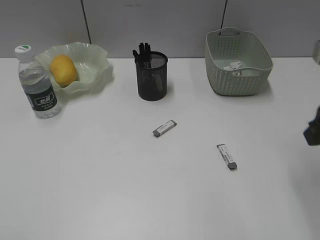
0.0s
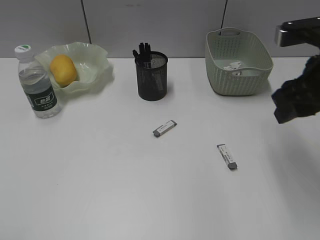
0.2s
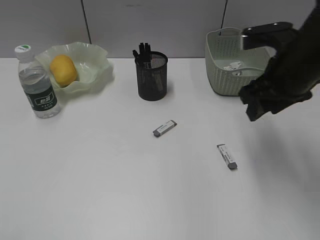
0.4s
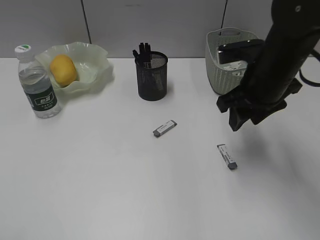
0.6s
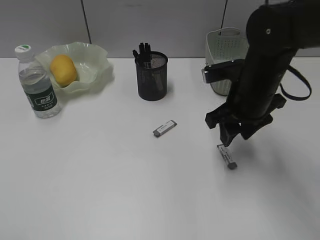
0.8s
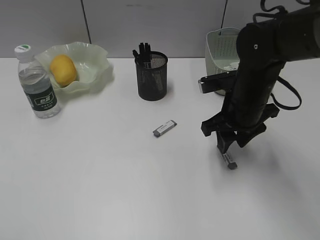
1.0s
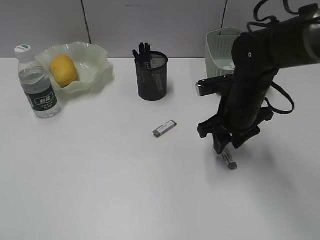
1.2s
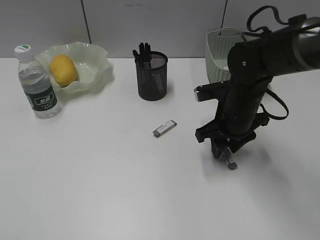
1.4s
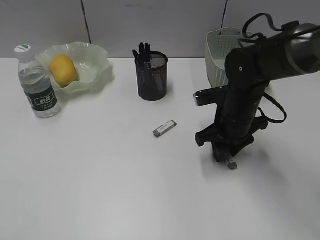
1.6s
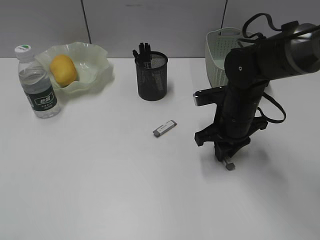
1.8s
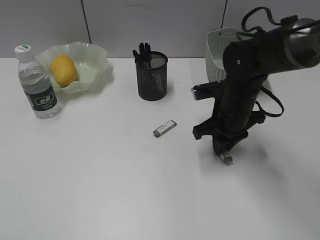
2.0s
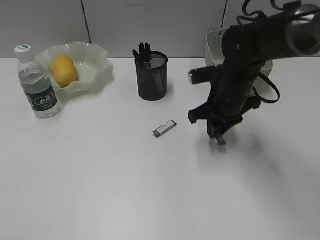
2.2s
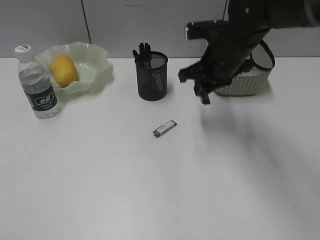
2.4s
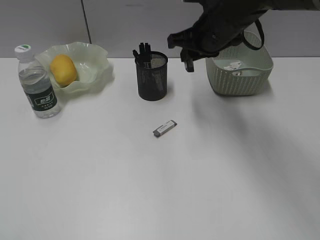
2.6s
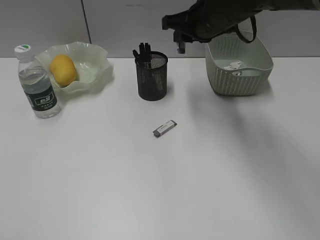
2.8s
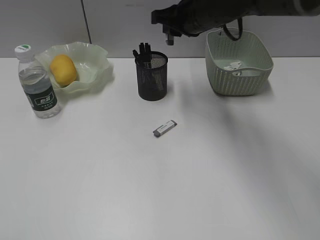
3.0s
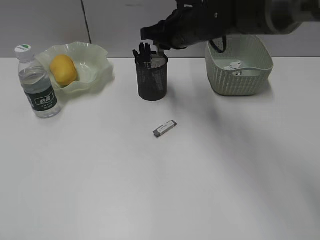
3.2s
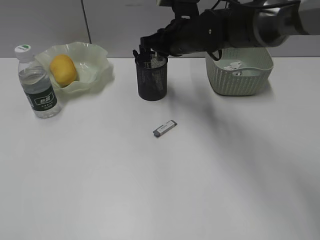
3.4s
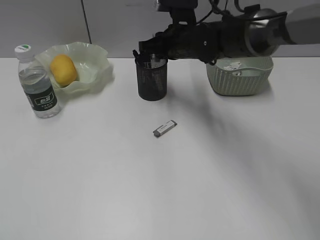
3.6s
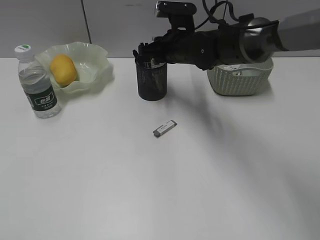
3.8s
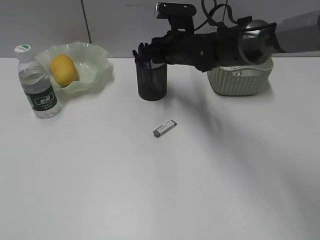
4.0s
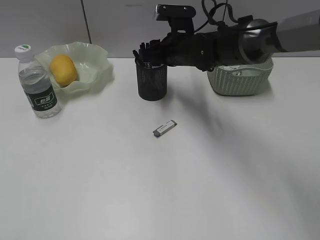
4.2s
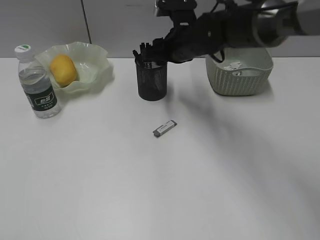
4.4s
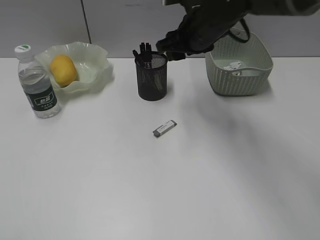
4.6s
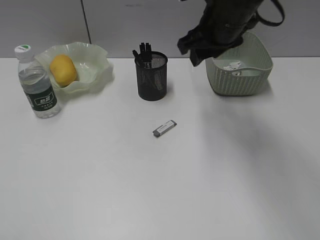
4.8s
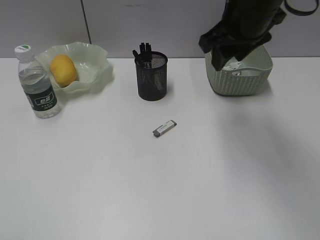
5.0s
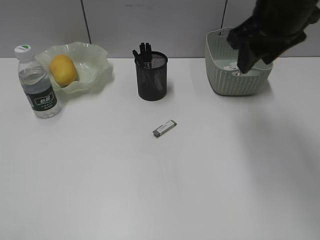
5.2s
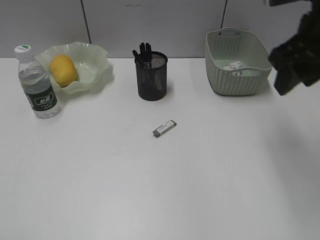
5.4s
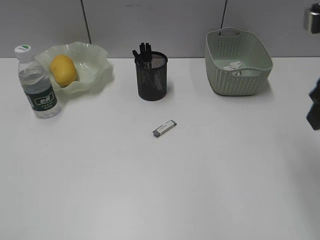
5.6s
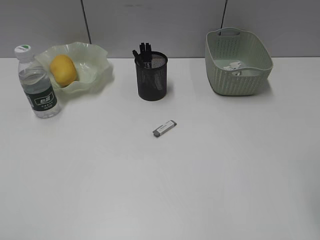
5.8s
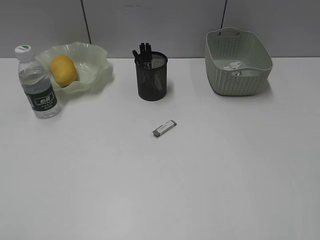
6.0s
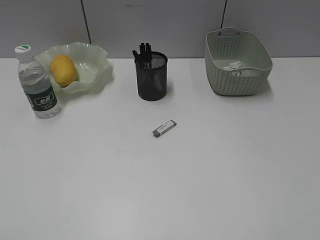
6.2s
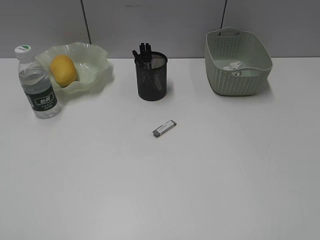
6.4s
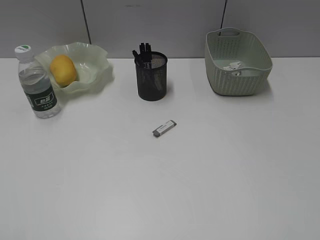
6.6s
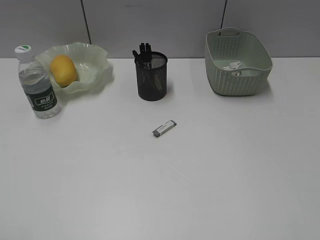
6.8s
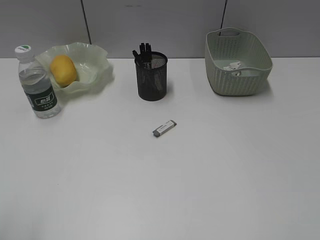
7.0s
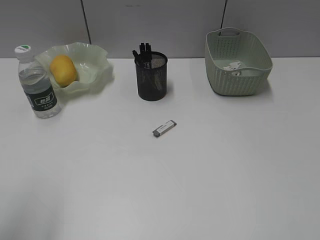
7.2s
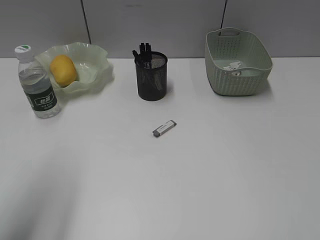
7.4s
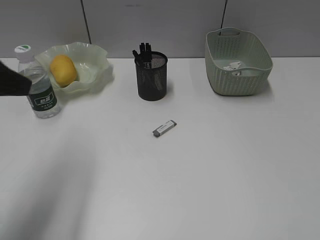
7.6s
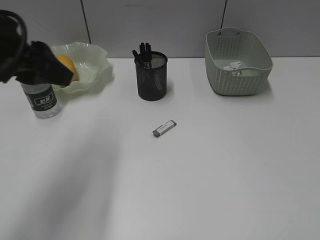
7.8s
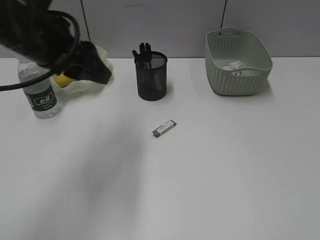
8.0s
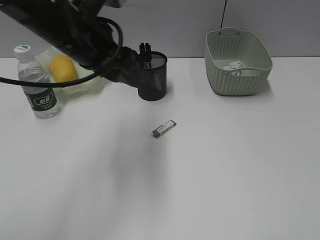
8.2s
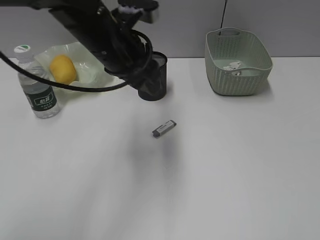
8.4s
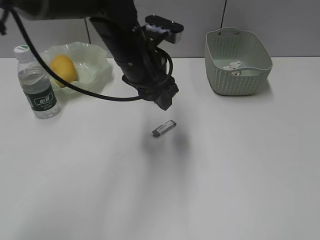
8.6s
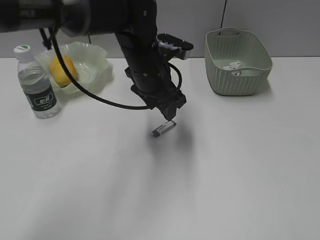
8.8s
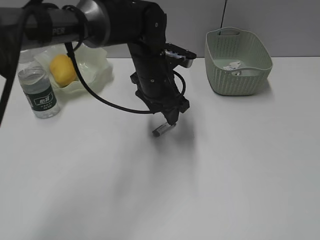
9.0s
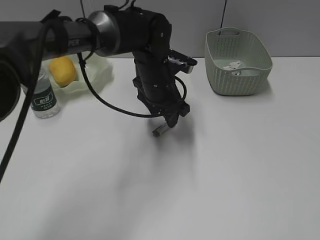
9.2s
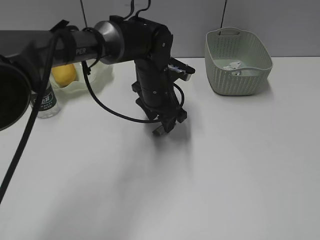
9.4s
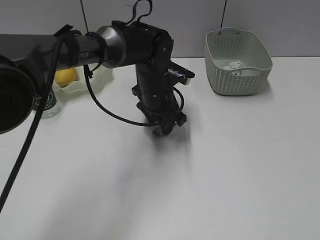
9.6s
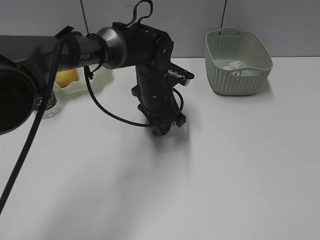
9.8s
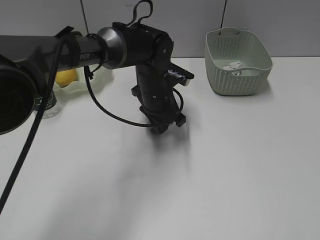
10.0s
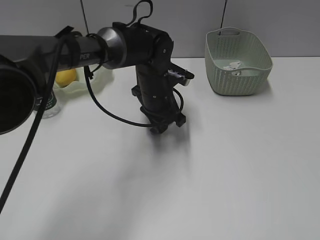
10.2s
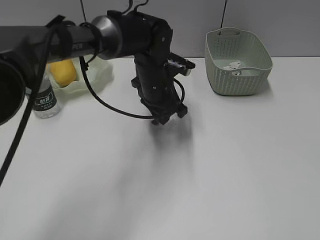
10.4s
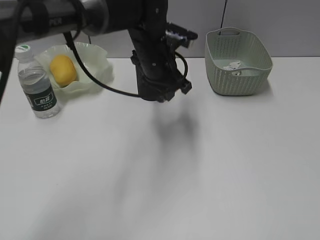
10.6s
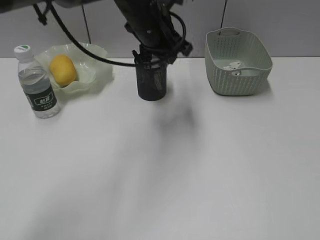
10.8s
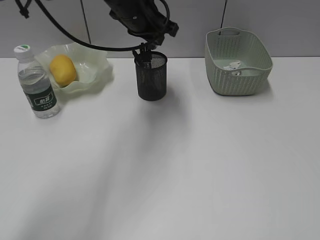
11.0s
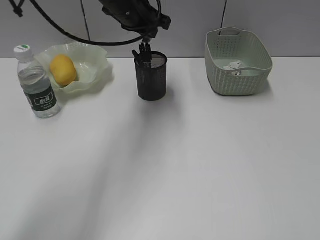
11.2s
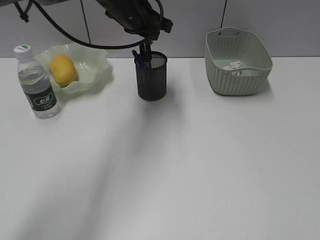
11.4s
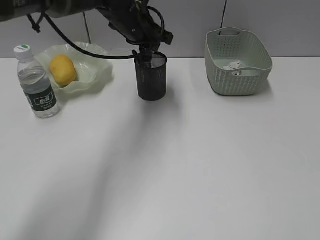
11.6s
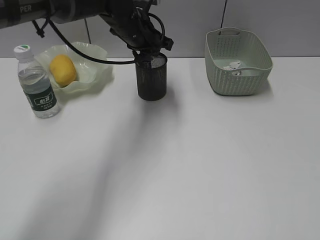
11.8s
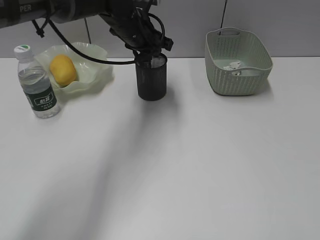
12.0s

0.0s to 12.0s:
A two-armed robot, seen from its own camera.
Step, 2.0s to 4.6s: Place the eraser in pen holder with right gripper.
Step, 4.8s to 10.2s: Grasp the eraser with left gripper.
0.0s to 1.6s: The right gripper travels downward, forward and to the left by about 25 cm.
1.6s to 3.0s: The right gripper shifts roughly 20 cm upward, forward and to the left.
3.0s to 4.4s: The right gripper shifts some 5 cm downward, and opens.
4.4s to 6.0s: The right gripper shifts about 40 cm backward and to the right.
6.0s to 7.6s: The left gripper moves forward, some 20 cm.
7.6s to 9.0s: The left gripper moves to the right, forward and downward, approximately 30 cm.
9.0s to 10.4s: The left gripper closes up.
10.4s to 12.0s: The left gripper travels upward and forward by approximately 10 cm.

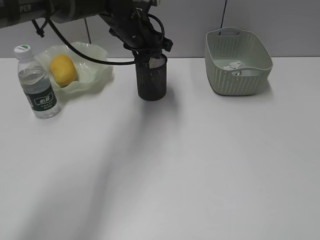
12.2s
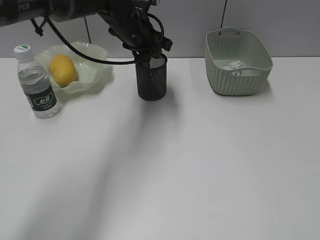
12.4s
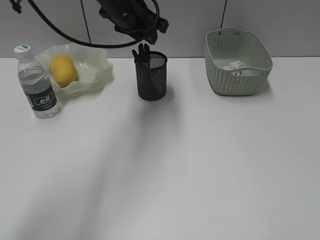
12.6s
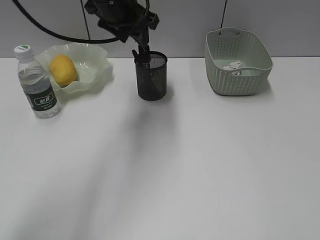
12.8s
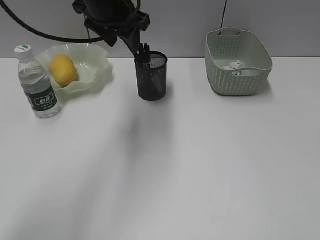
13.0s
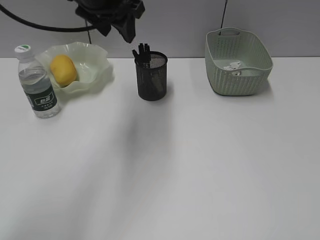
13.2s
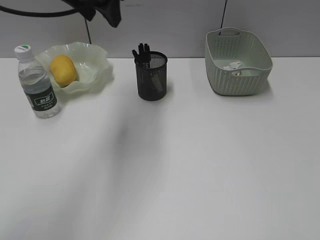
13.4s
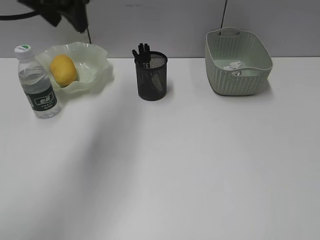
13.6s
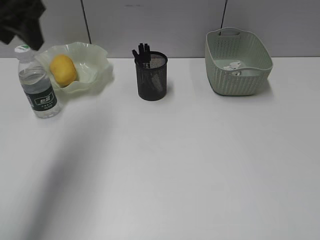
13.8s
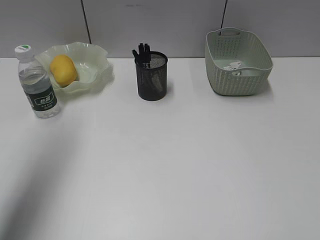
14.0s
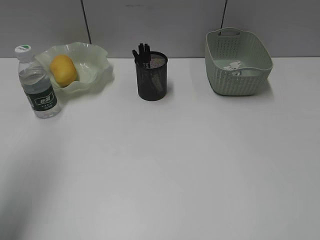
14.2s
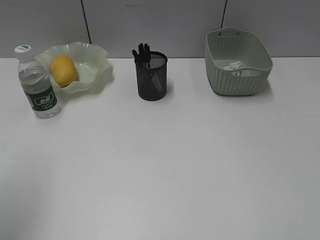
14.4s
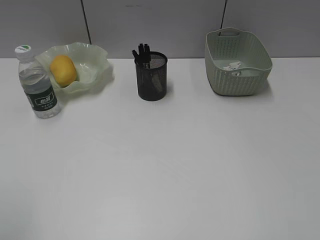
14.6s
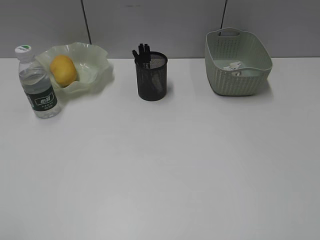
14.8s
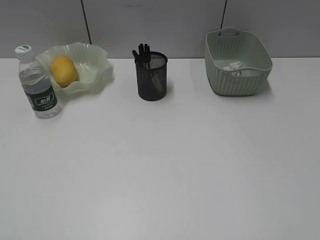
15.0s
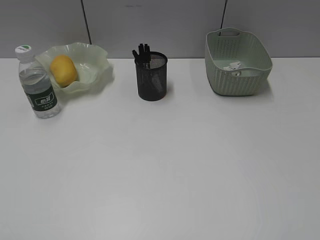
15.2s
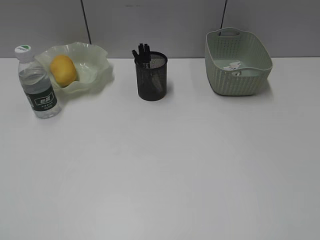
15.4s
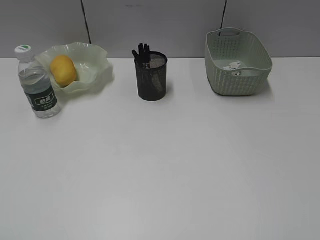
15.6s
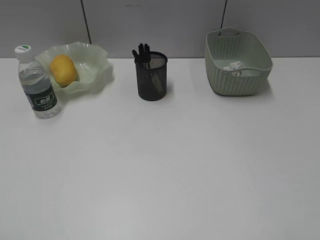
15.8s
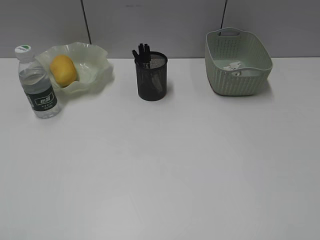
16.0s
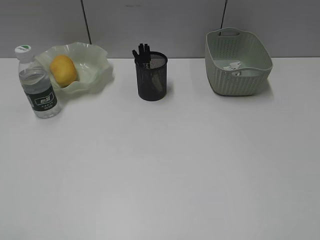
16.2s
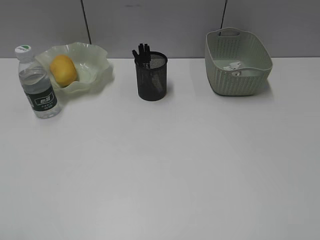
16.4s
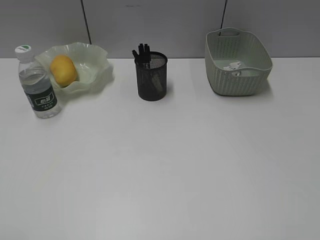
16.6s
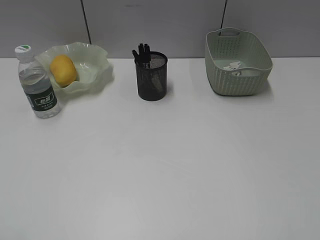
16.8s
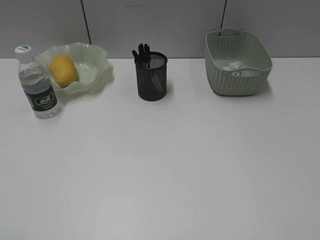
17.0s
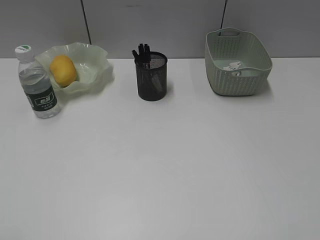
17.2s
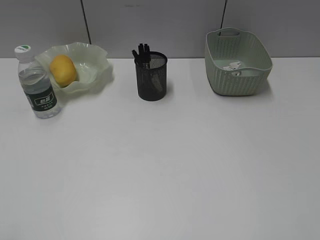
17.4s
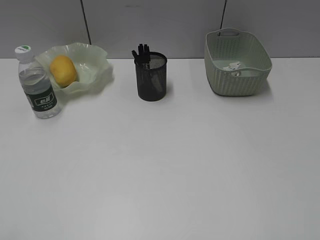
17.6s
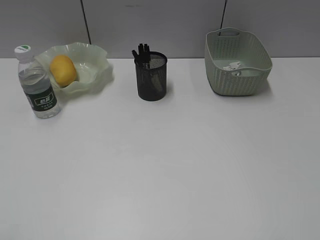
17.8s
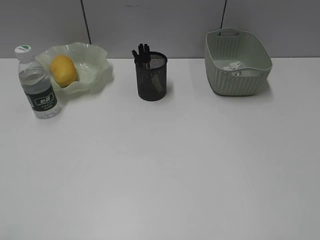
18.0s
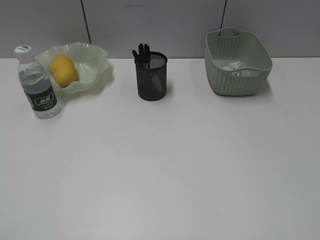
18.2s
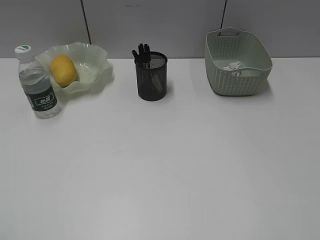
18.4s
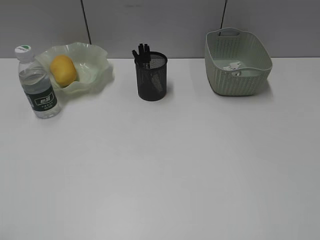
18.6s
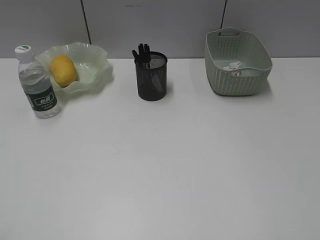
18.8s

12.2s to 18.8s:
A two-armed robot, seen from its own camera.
12.2s to 13.8s: The left gripper goes about 25 cm to the left, backward and upward.
13.8s to 15.4s: The left gripper travels backward by roughly 35 cm.

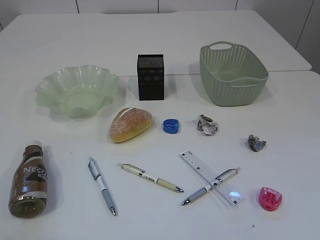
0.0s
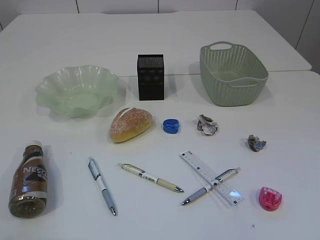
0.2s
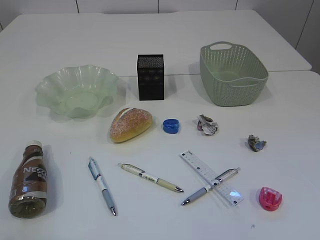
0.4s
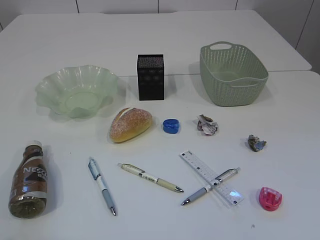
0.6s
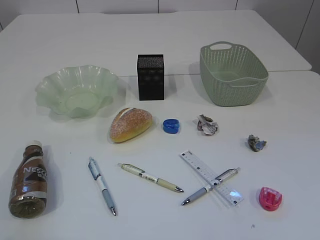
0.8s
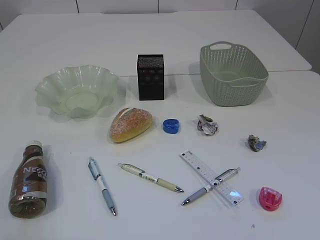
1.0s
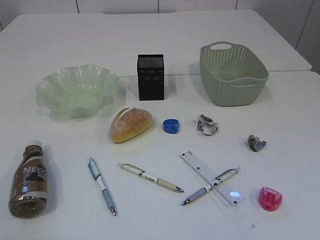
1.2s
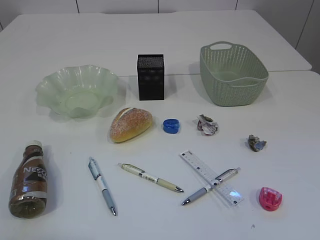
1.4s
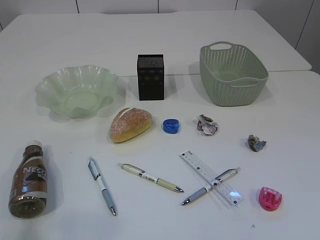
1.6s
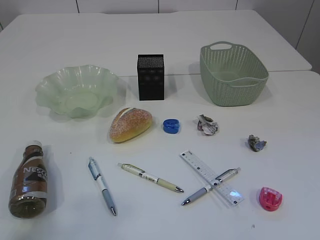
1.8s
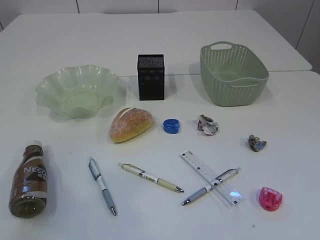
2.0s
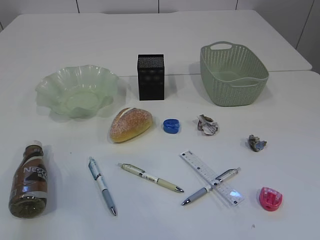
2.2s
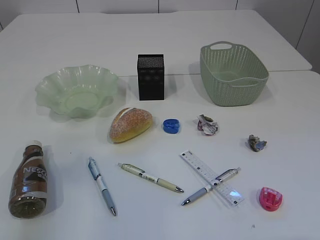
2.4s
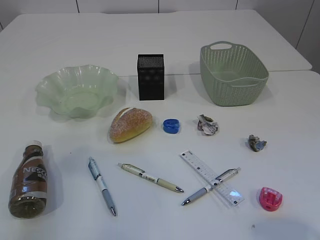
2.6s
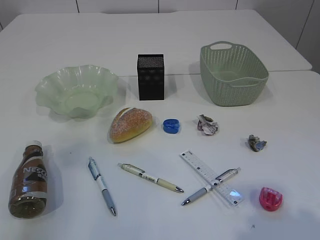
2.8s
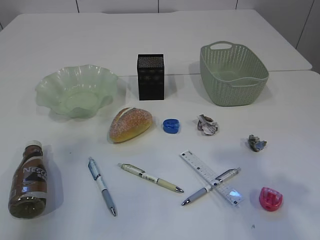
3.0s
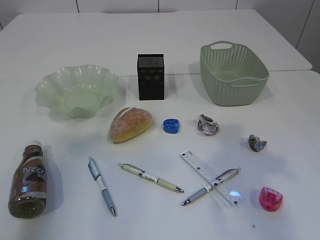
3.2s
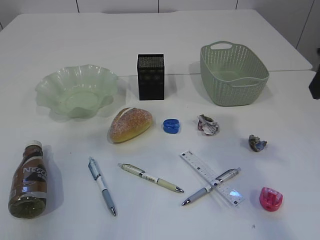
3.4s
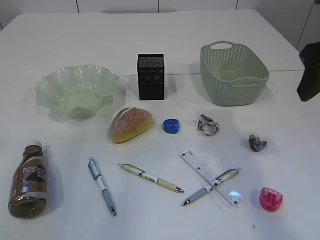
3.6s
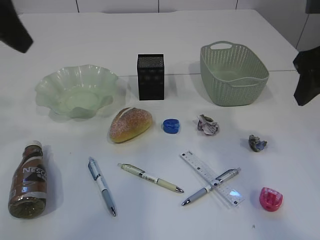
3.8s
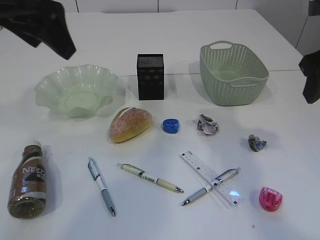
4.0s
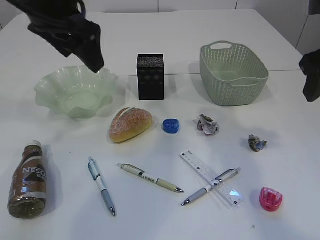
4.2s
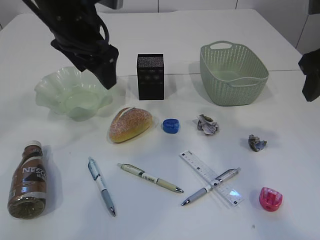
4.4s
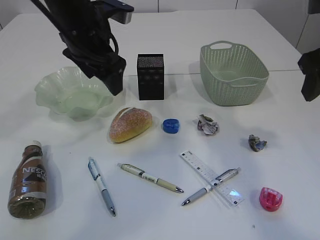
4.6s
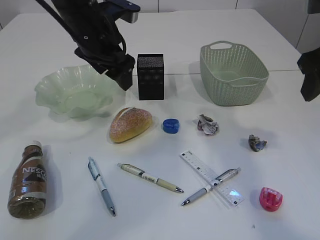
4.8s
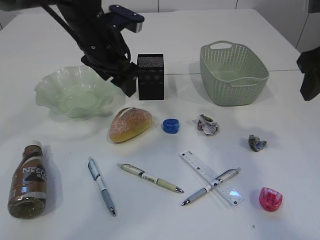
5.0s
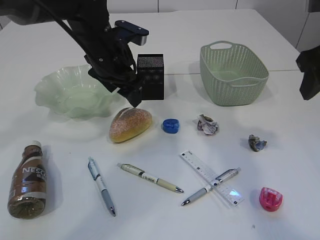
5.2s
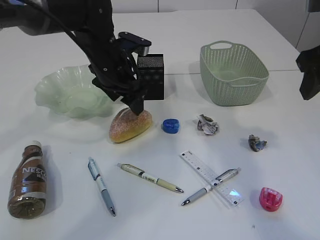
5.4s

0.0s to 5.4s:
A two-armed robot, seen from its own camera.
1.4s to 2.8s: The right gripper travels forward and upward by roughly 10 cm, while the left gripper travels forward and upward by roughly 20 cm.
2.8s to 4.0s: The left gripper heads forward and to the right, covering about 20 cm; the right gripper goes approximately 20 cm forward.
4.0s to 5.4s: The left gripper is displaced downward, forward and to the right by approximately 20 cm.
